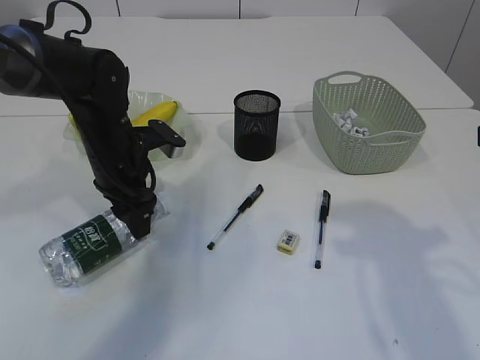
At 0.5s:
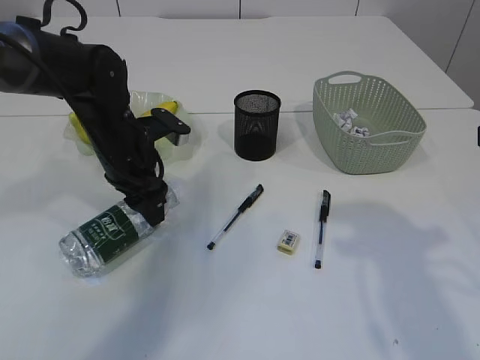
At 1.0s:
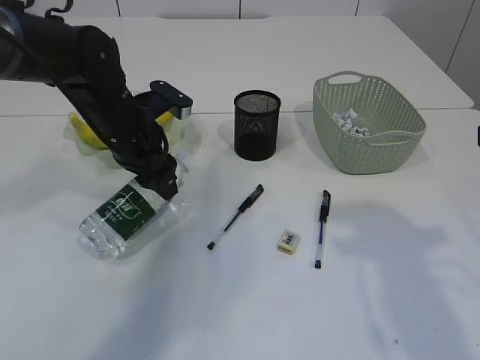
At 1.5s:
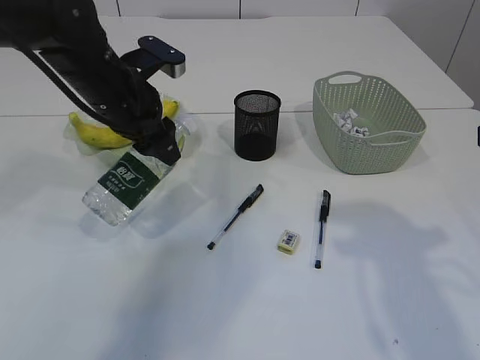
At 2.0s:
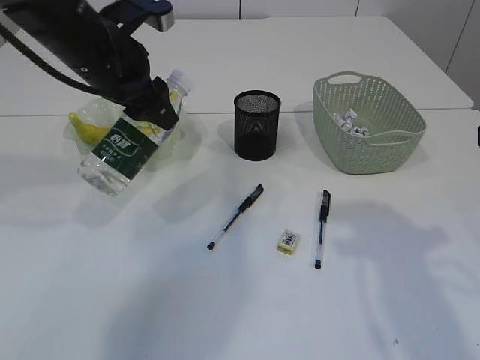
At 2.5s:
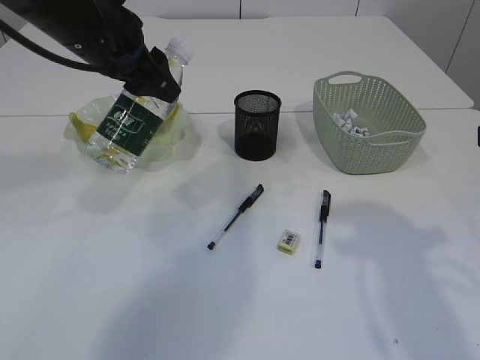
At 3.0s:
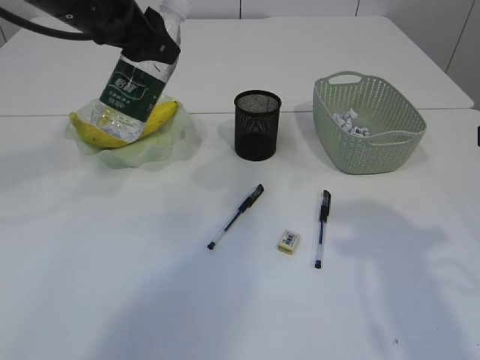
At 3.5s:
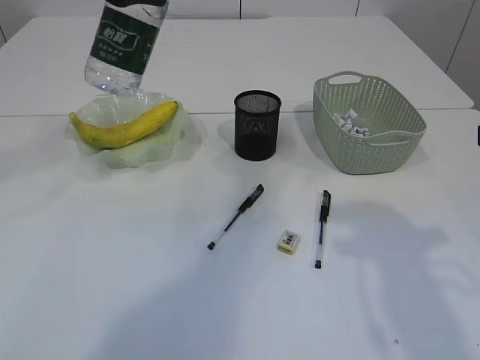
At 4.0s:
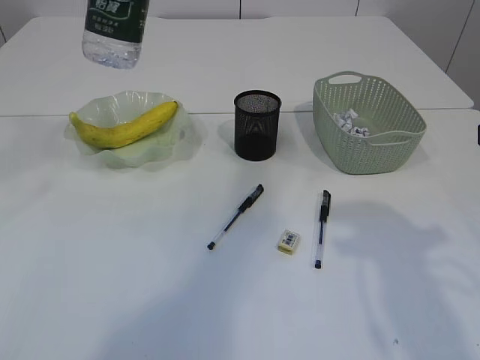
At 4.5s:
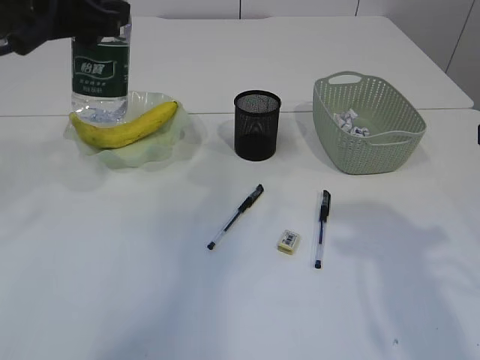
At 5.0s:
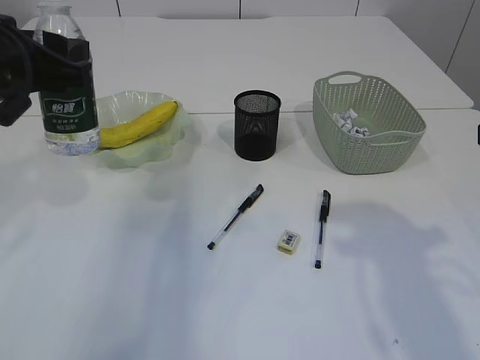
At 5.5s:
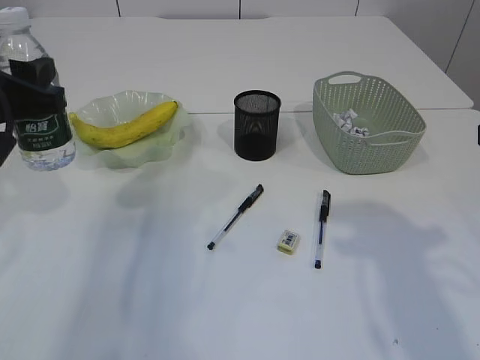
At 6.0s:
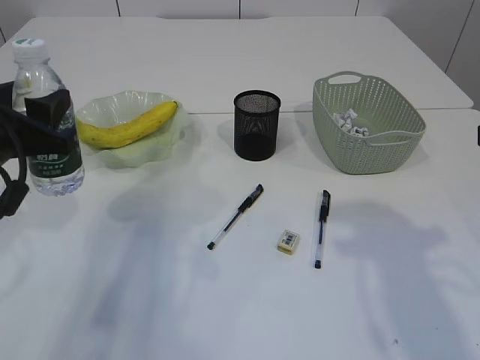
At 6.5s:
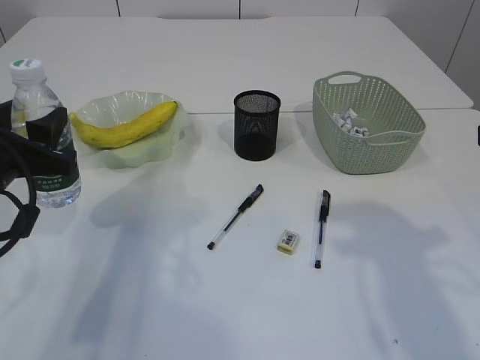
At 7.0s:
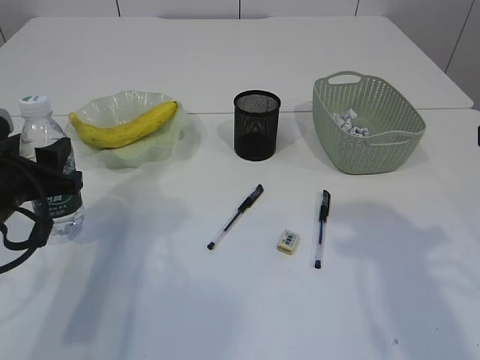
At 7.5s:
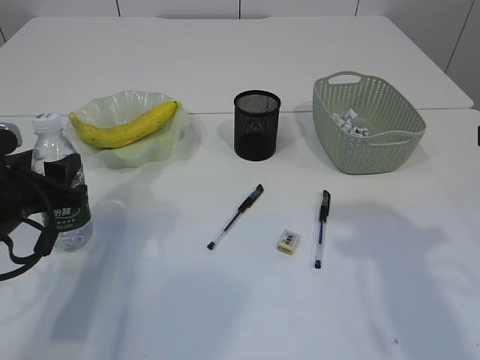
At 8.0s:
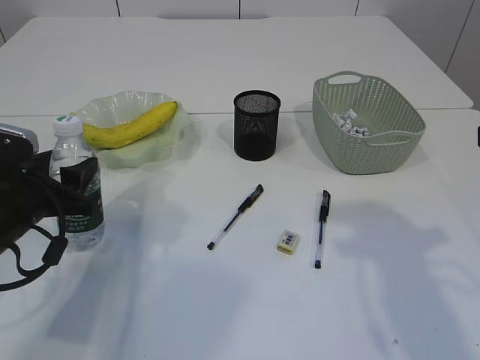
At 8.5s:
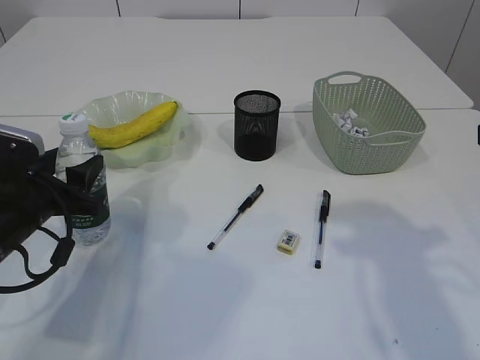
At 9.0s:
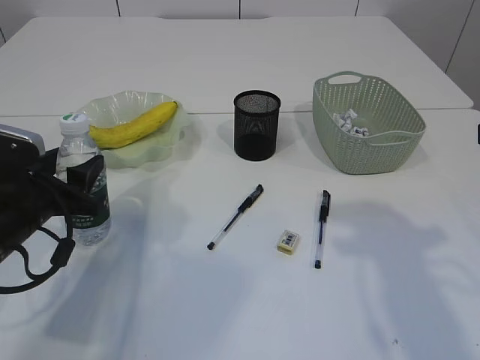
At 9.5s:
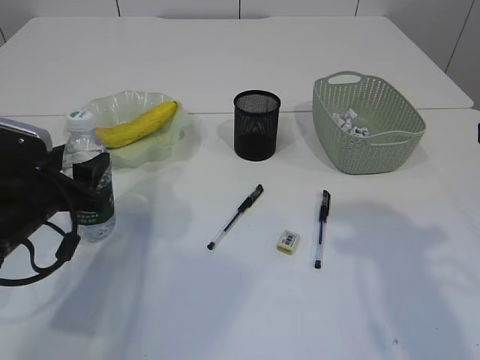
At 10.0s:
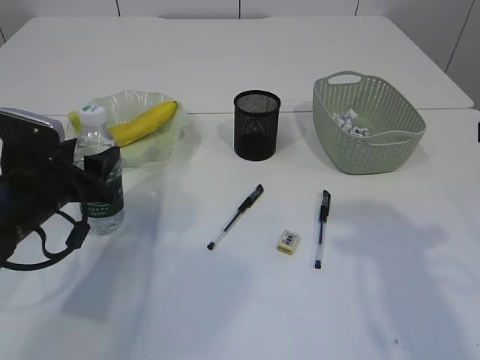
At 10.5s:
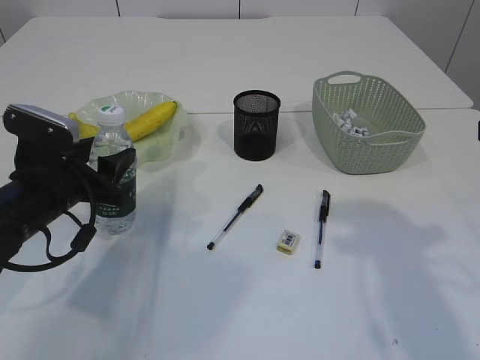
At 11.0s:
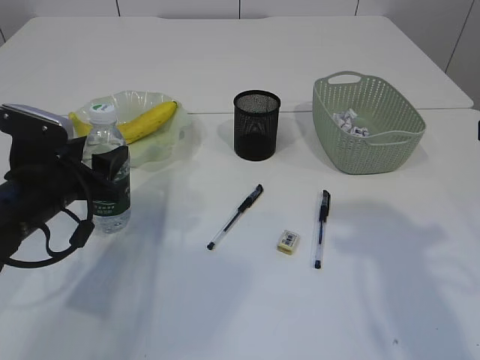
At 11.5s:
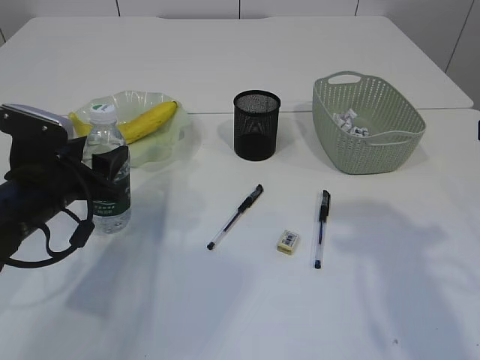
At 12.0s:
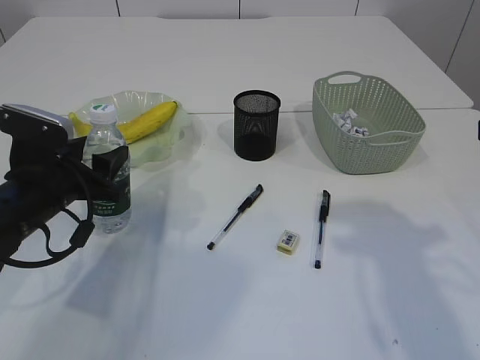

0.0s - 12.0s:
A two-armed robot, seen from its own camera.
0.0s - 2.0s: The left gripper is displaced upward by about 15 cm.
2.0s - 4.0s: The left gripper is displaced upward by some 10 cm.
4.0s - 6.0s: The left gripper moves downward and backward, some 20 cm.
6.0s - 8.0s: The left gripper shifts about 10 cm downward.
8.0s - 12.0s: There are only small adjustments of the grippers.

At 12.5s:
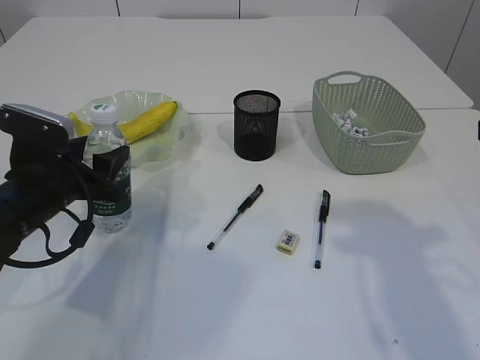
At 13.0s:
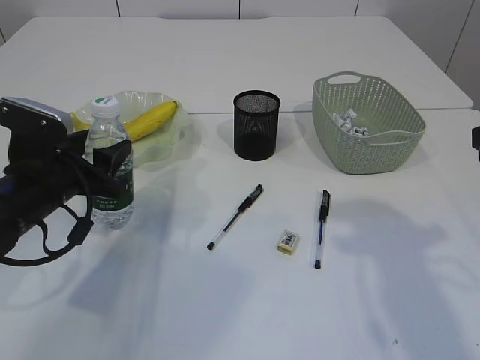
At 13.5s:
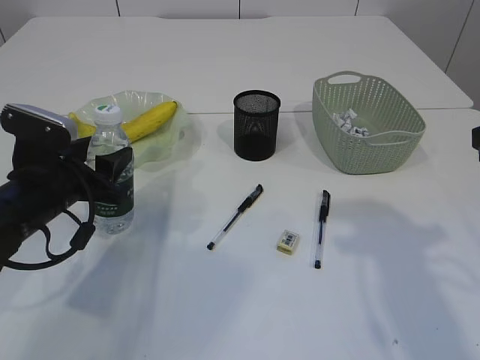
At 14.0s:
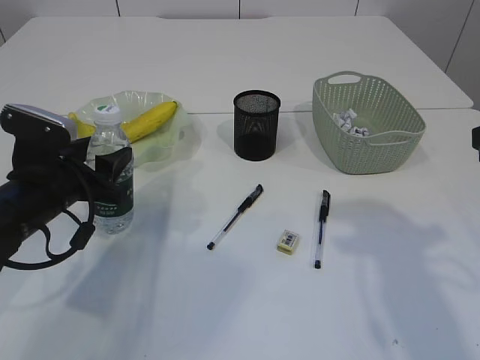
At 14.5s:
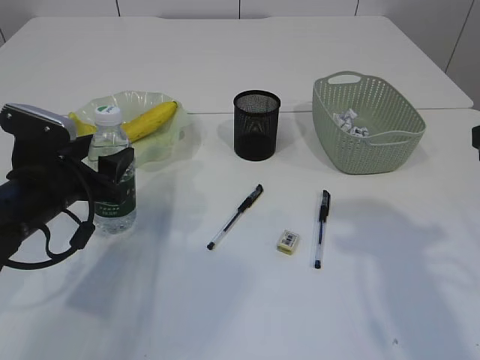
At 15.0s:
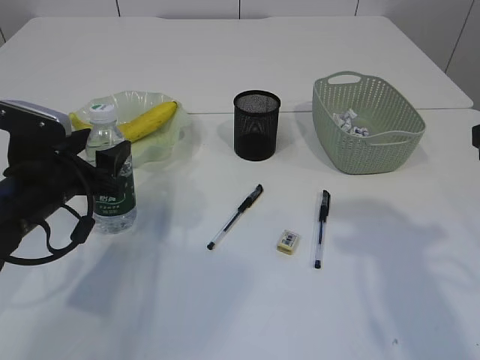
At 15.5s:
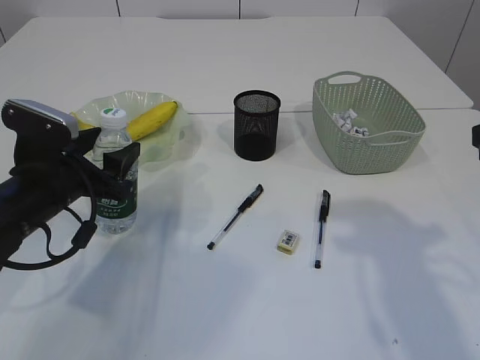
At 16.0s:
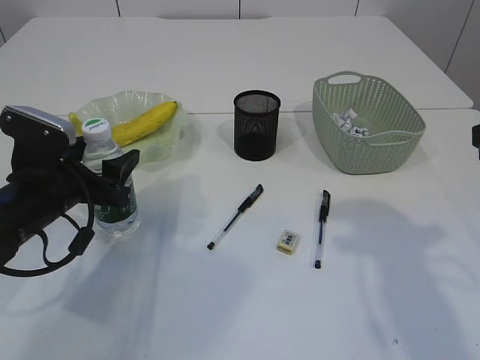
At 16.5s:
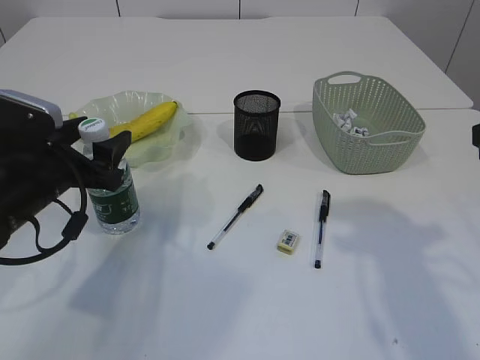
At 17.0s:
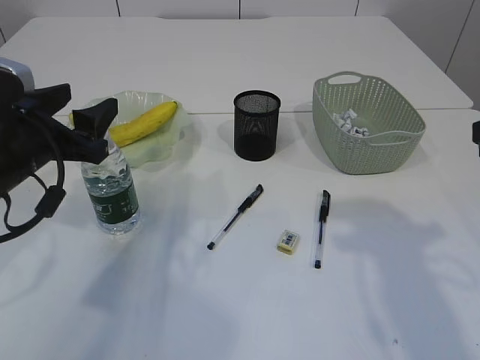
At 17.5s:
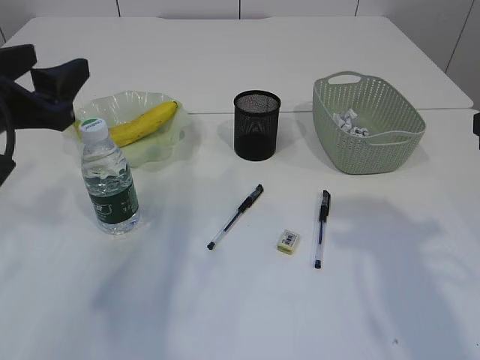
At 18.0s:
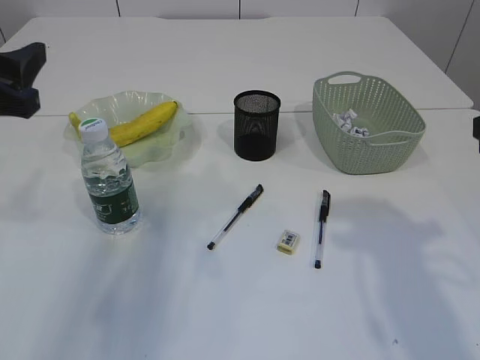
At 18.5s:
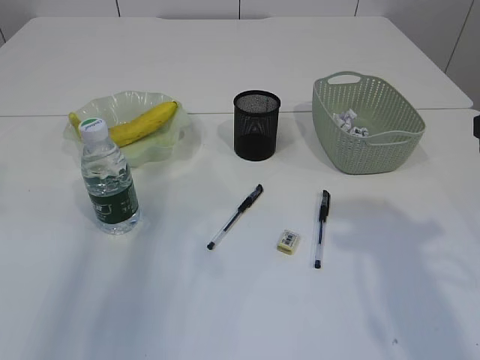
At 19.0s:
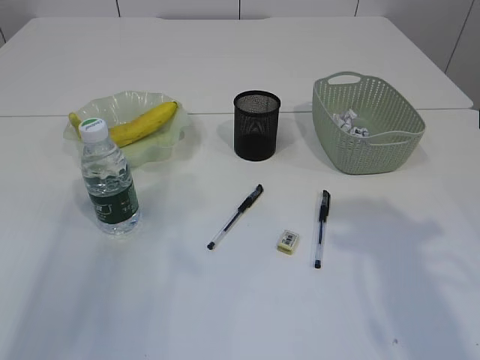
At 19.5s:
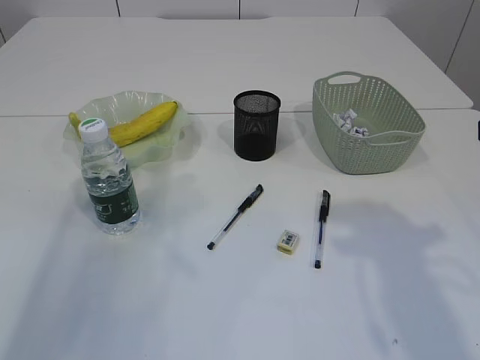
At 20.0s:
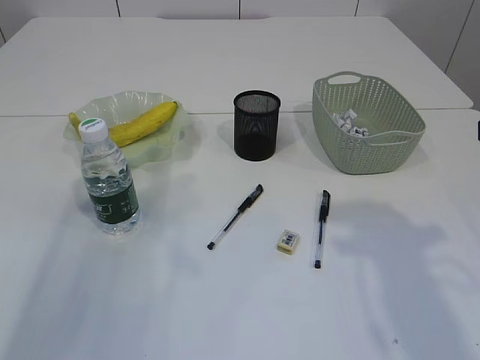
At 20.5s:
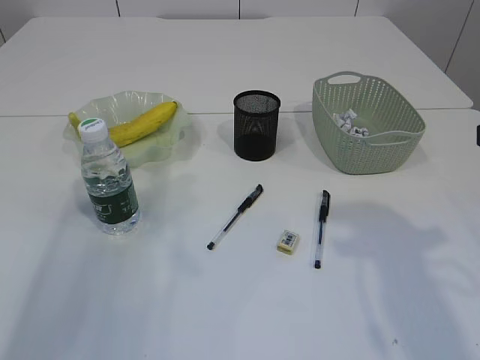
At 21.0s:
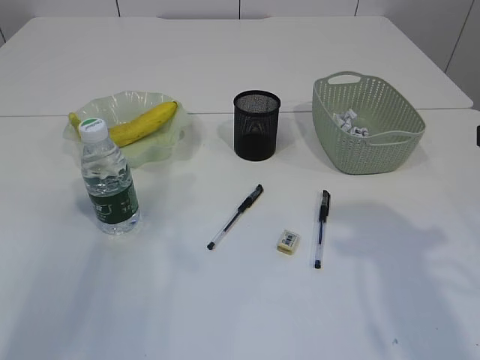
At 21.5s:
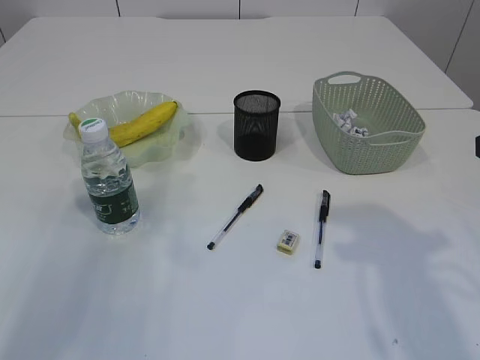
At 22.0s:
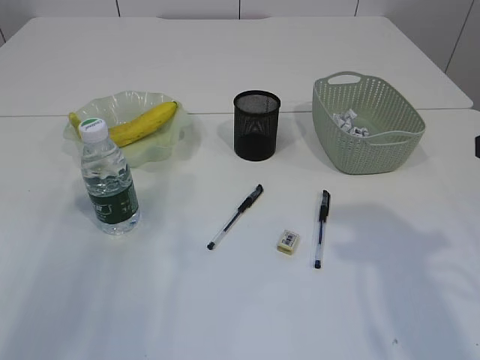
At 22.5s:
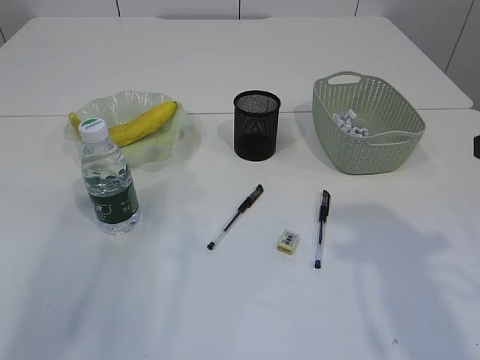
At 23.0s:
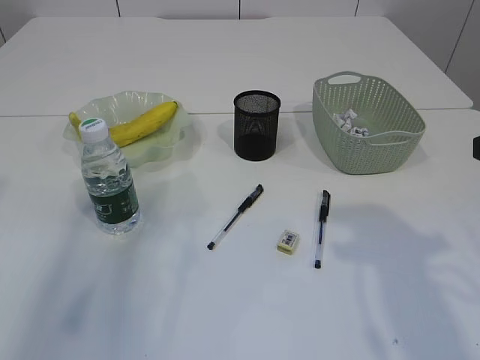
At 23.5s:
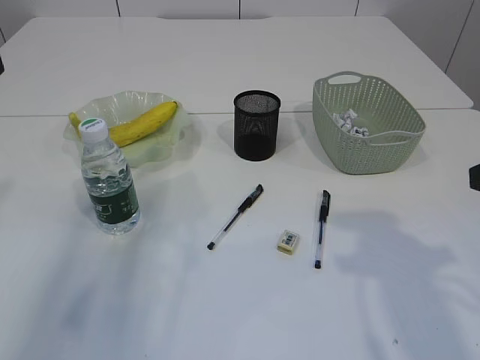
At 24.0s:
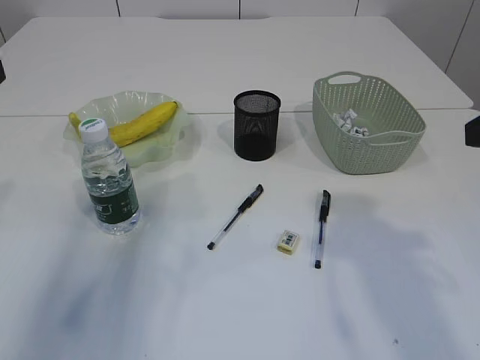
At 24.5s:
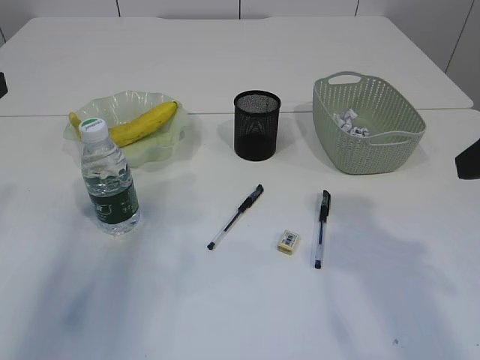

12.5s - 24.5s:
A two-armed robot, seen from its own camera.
Step, 12.5s - 16.5s: Place the bottle.
12.5s - 14.5s: The two grippers keep their place.
14.5s - 16.5s: The grippers stay close to where they were, moving slightly.
16.5s - 18.5s: The left gripper shifts some 15 cm upward and backward.

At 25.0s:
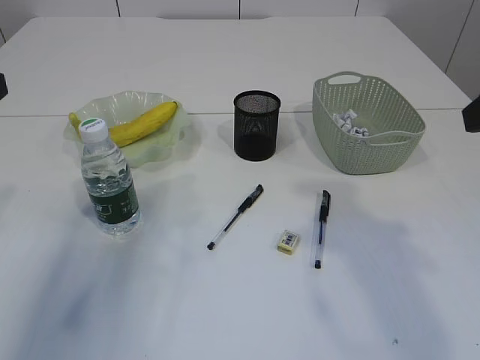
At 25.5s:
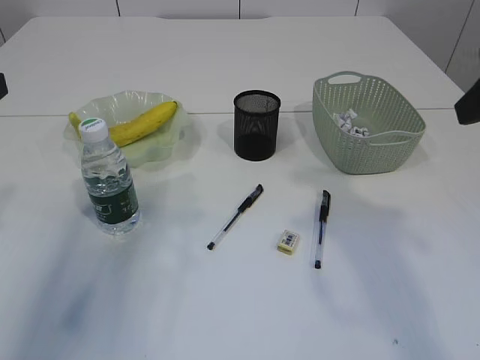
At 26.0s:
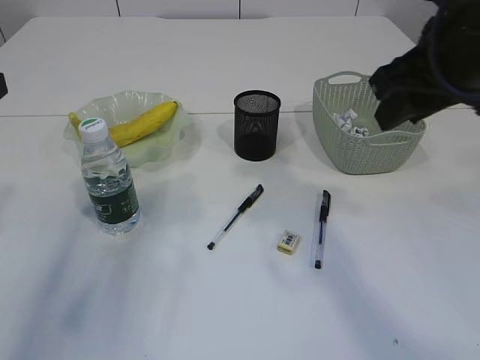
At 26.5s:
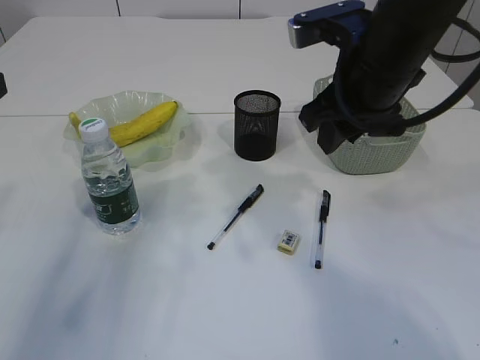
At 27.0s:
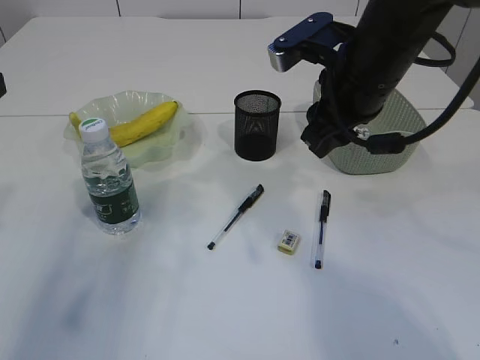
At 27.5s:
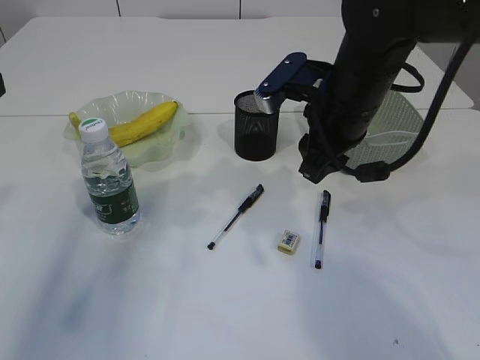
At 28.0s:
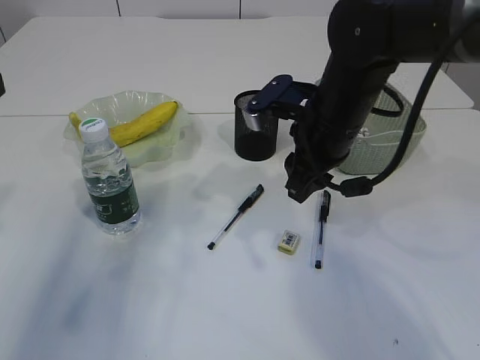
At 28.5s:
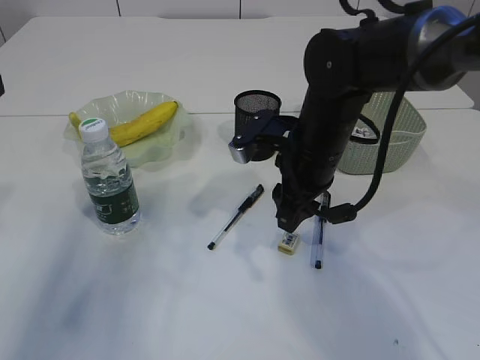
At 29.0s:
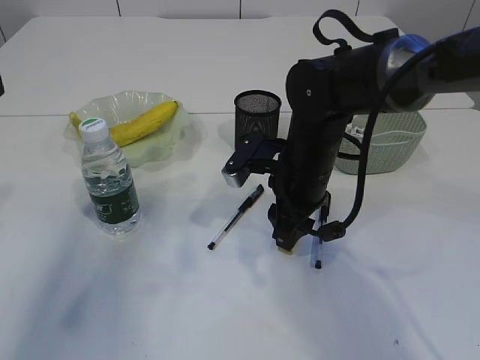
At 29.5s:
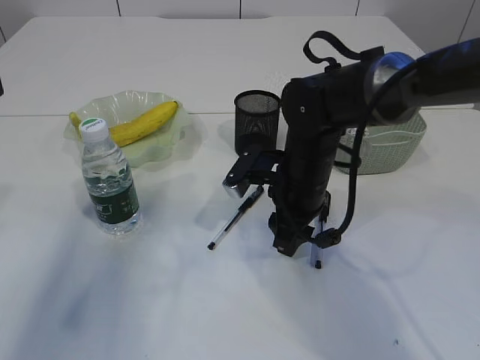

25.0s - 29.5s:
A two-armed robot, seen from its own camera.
25.0s - 27.0s: The right gripper heads forward, to the left and downward, covering about 20 cm.
27.0s - 29.5s: The right gripper moves downward, about 15 cm.
